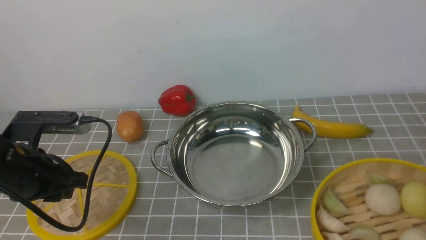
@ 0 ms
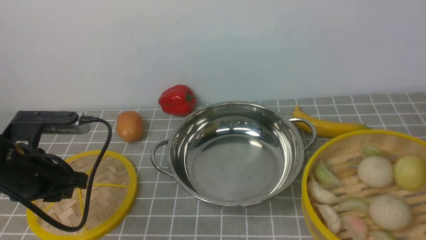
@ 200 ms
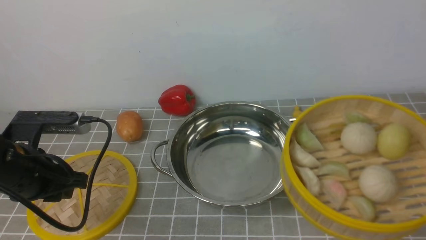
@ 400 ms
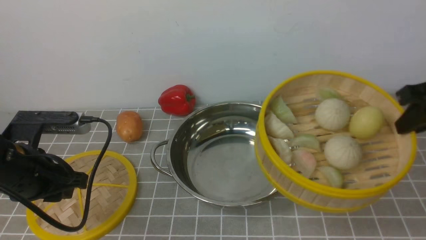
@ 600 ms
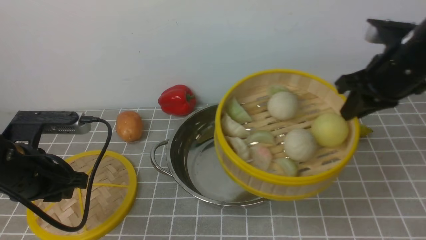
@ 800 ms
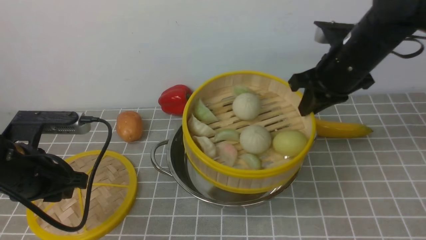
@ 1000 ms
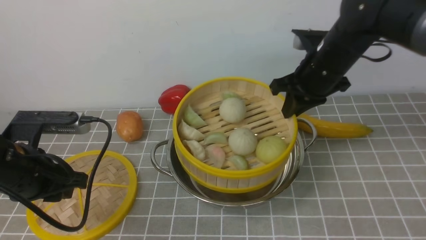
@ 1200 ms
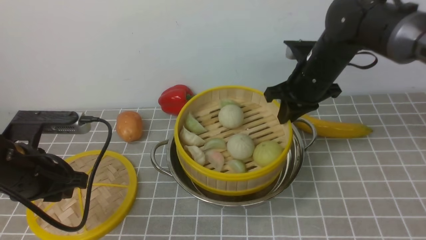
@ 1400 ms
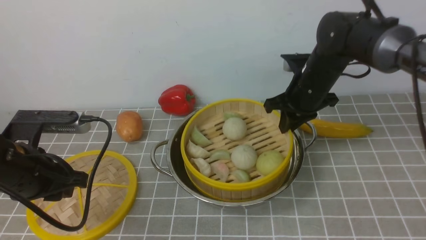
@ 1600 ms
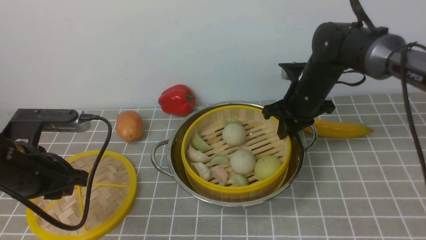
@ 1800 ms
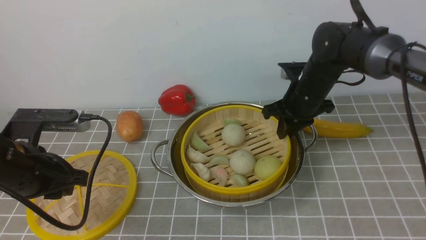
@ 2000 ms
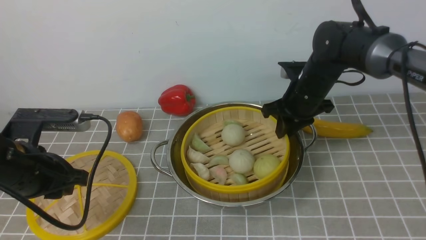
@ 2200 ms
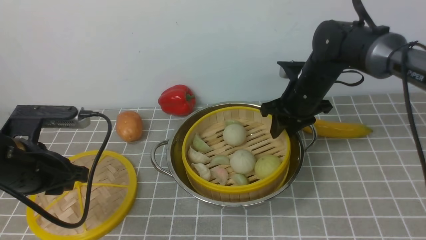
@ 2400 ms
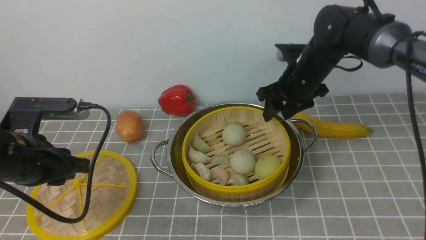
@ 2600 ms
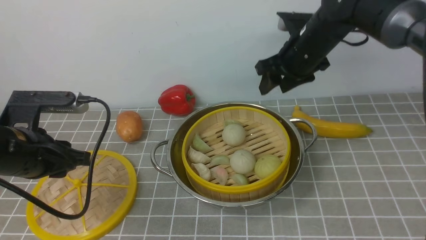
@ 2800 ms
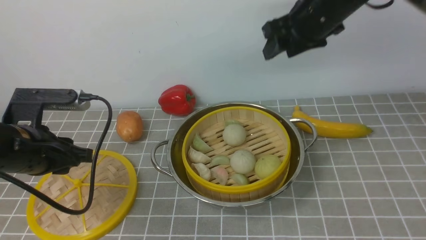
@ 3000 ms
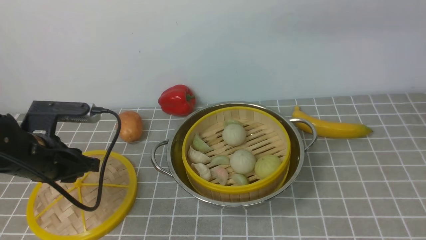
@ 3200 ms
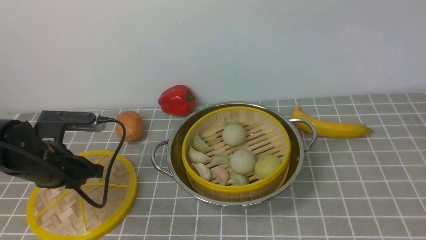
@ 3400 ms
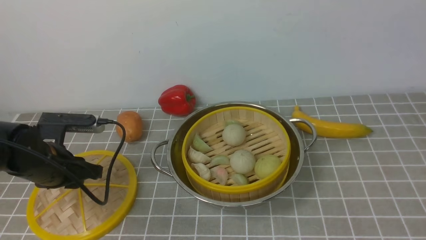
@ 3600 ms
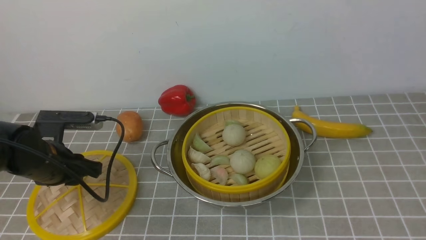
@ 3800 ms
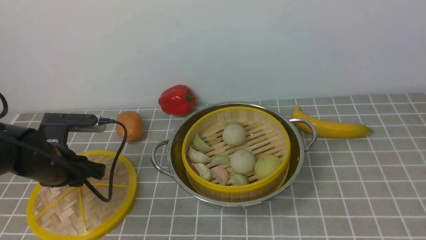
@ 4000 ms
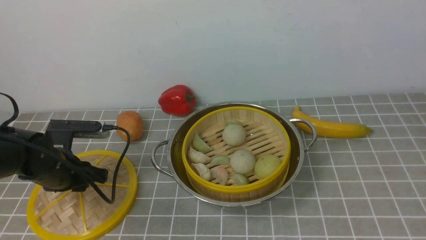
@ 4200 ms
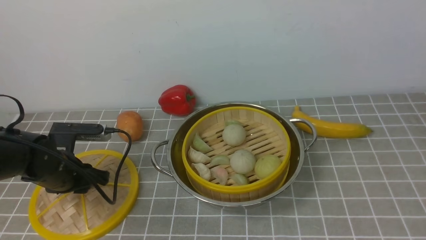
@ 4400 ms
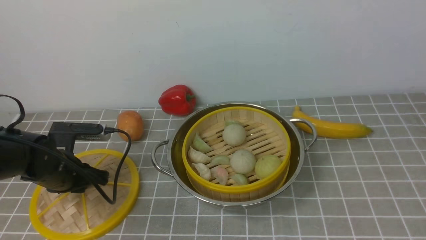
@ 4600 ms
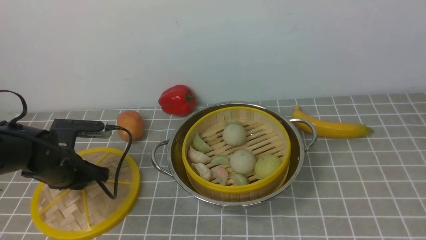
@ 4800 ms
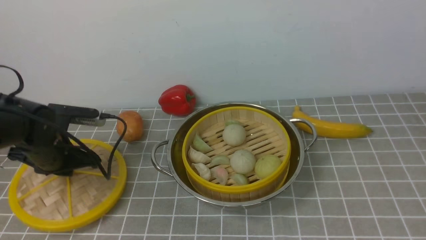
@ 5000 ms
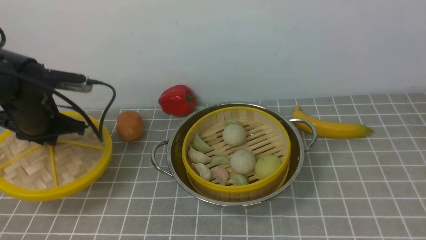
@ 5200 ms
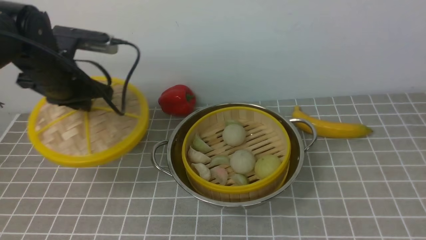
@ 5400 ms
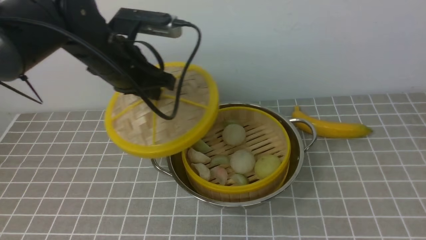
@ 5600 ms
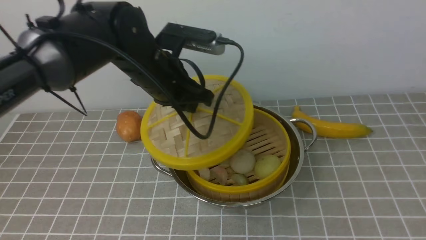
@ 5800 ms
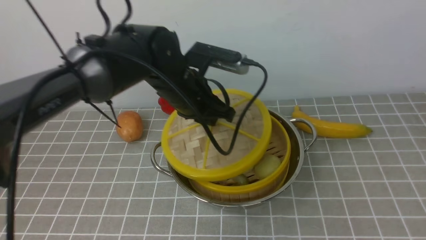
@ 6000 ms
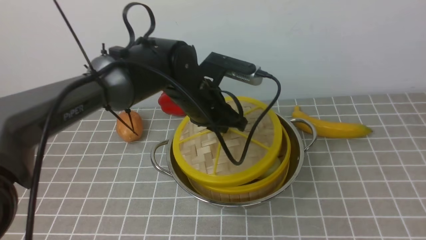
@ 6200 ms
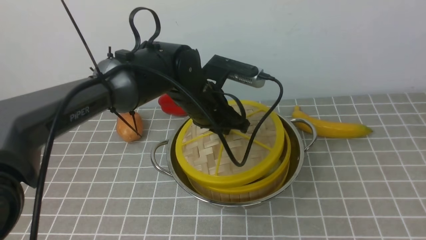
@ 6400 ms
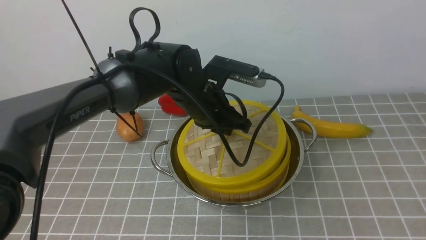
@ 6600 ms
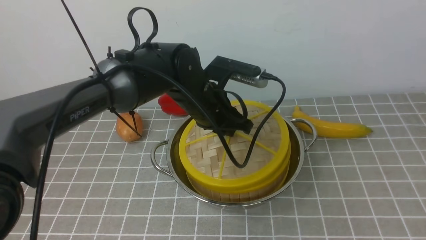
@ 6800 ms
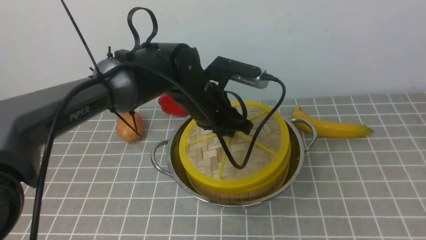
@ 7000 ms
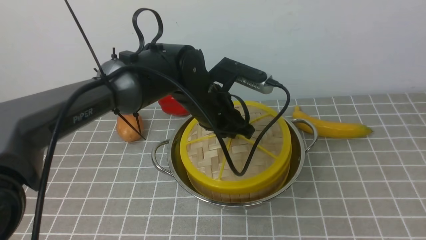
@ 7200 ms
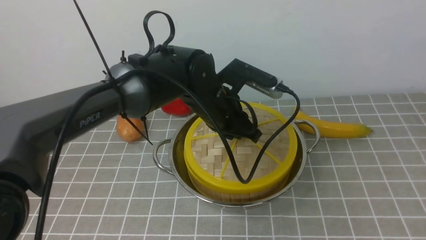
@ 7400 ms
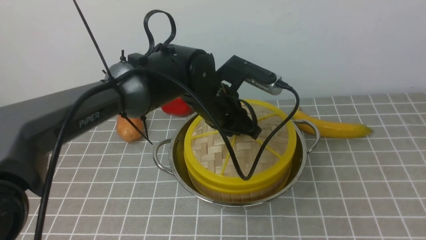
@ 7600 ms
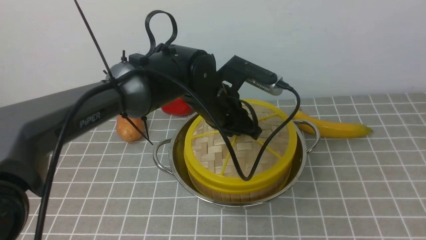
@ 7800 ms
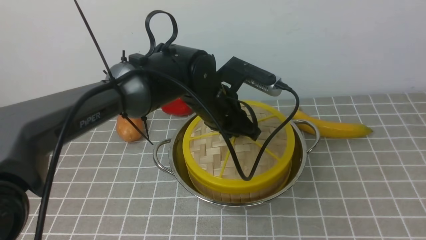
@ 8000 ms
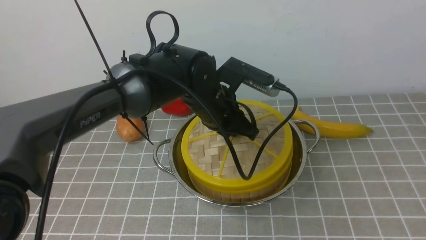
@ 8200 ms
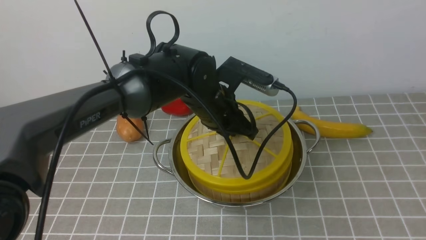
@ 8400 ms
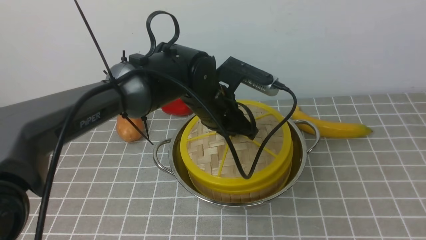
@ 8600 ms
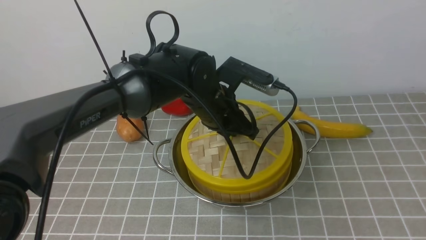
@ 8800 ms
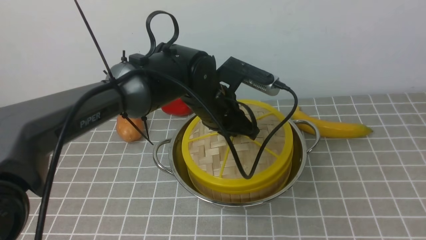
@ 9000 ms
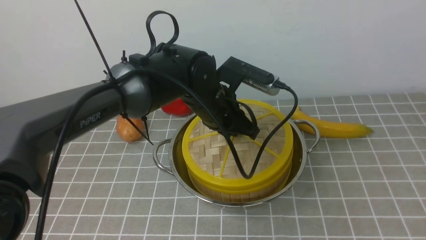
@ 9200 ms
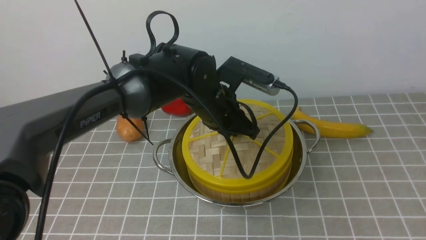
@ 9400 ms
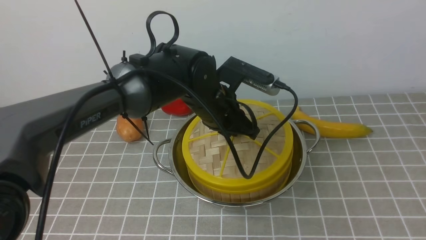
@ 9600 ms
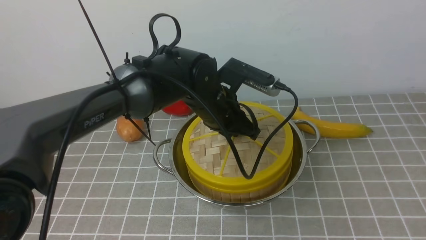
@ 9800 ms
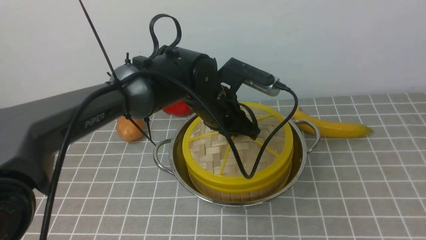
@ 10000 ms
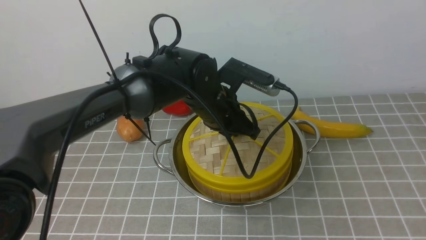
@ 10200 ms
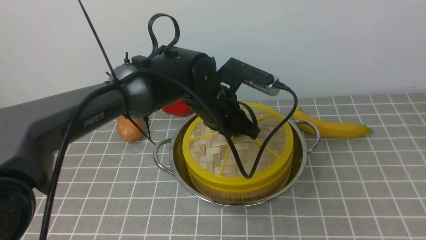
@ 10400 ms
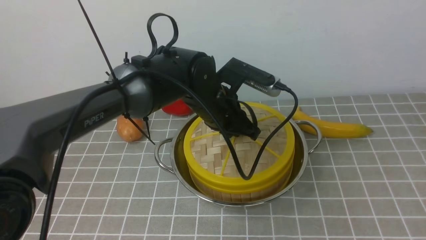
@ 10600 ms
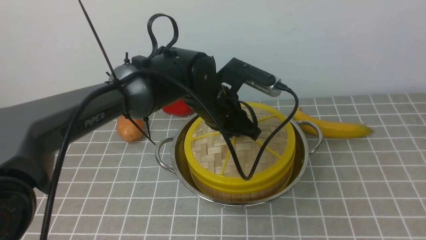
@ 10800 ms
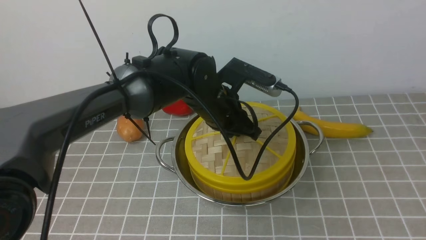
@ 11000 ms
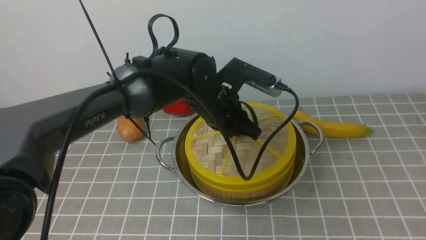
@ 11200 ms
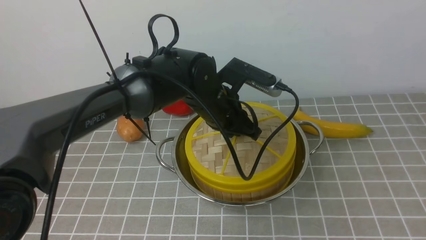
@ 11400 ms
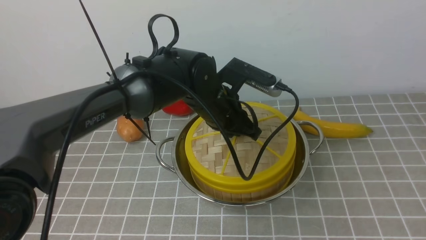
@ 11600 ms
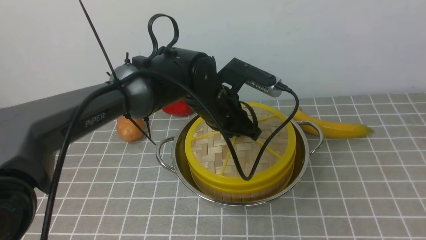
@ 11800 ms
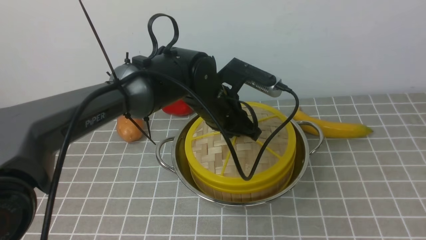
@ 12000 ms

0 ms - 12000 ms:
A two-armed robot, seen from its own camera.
Task of the whole recording: place the steamer in the pot on the grey tablecloth, and put the lid on the steamer.
Step, 0 ms - 2600 ms: use the right arm to put the steamer into the iron steamer pot in the middle.
Step, 2800 ms - 5000 ms: use the left arm to lift the lid of the steamer.
0 ms - 1600 ms: The right gripper moves forward and to the left, approximately 25 cm.
1600 ms - 3000 ms: The right gripper moves upward, approximately 10 cm, and opens.
3000 ms - 4400 ms: The left gripper heads downward, covering about 10 cm. Meanwhile the right gripper moves backward and upward, approximately 50 cm.
4400 ms - 6000 ms: The left gripper goes approximately 20 cm to the right and upward, and closes its fingers.
6000 ms - 7600 ms: The left gripper heads to the right, covering some 5 cm.
7600 ms - 12000 ms: Both grippers stay about where they are.

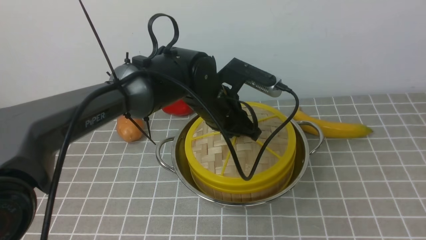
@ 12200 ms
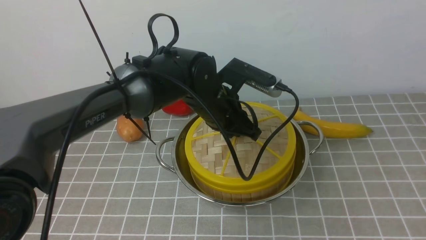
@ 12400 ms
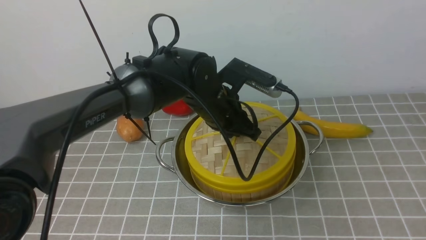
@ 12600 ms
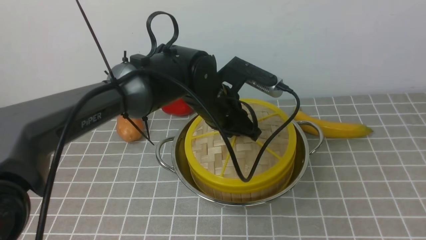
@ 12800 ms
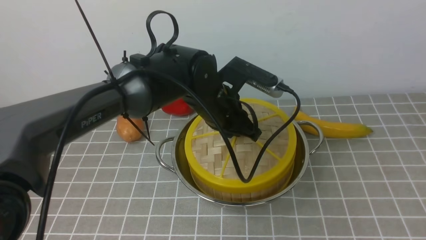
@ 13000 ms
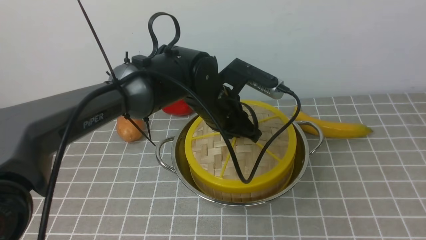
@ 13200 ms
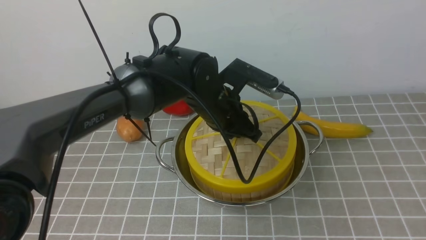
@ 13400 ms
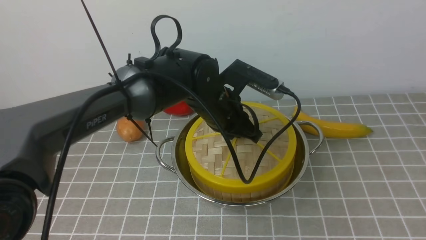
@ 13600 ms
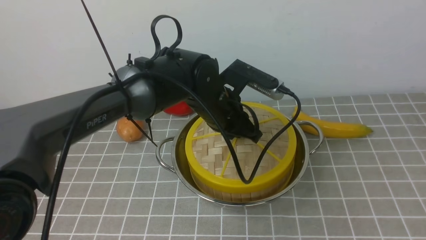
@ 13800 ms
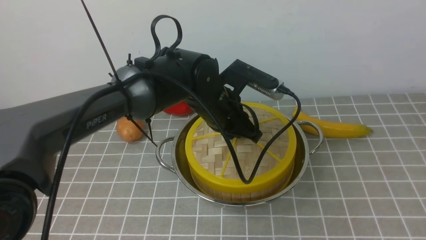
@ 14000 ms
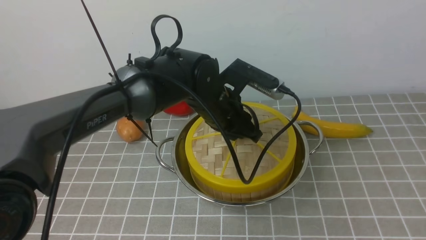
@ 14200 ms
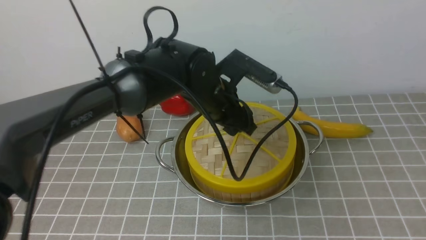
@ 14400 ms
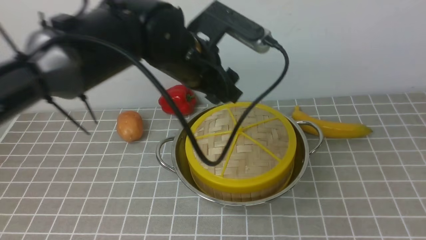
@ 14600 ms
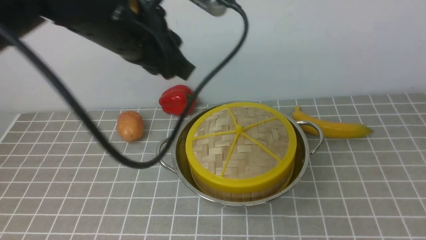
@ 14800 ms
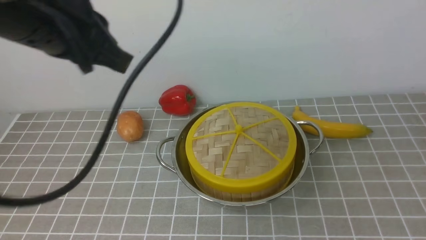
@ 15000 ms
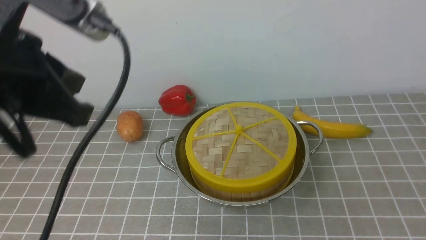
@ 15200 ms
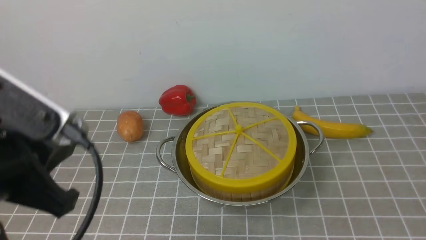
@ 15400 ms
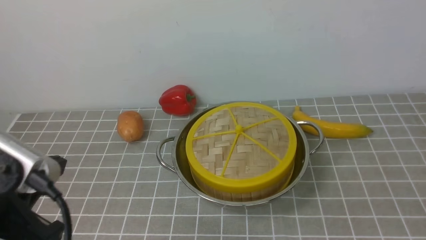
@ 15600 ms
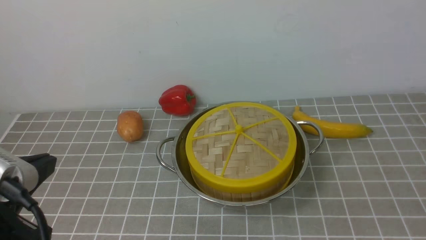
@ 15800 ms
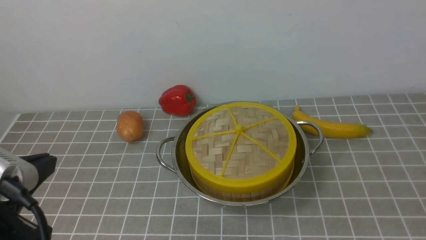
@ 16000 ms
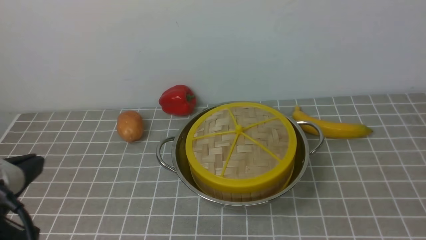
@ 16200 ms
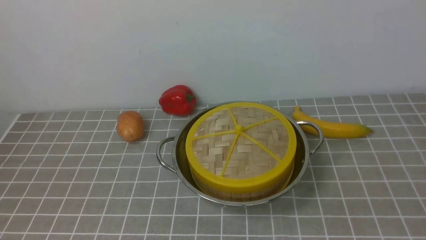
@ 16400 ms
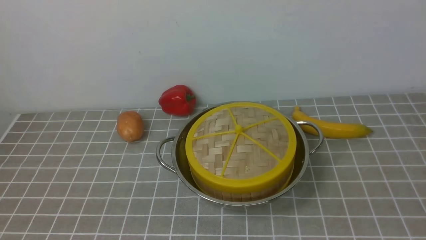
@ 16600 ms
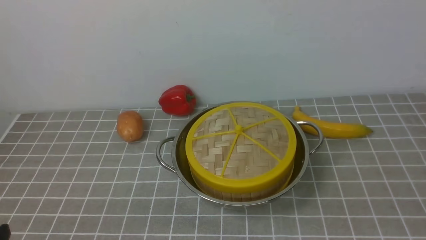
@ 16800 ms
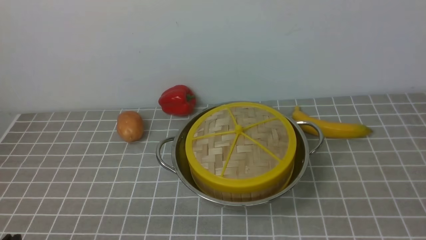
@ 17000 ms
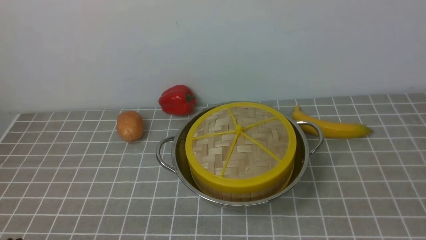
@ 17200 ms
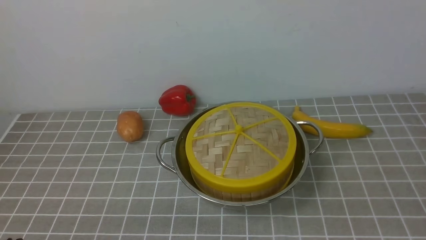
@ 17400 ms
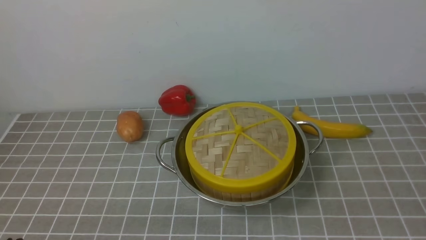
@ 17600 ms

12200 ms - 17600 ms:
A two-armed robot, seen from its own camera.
Task of the whole recording: place the steamer in the pot on the grey tablecloth, and put the lid on the steamer.
Step, 12200 ms - 14400 ms: use the left arm to place the steamer lid on the steamer.
12200 ms - 13600 ms: Both grippers stay put.
13600 ms - 15000 ms: The left gripper travels upward, to the left and backward by about 25 cm, and opens and closes again. Meanwhile the right gripper moves downward, roughly 10 cm.
15000 ms - 16200 ms: The right gripper travels downward by approximately 15 cm, and closes up, while the left gripper moves backward, to the left and downward, some 20 cm.
16200 ms - 17600 ms: The left gripper is displaced downward by approximately 15 cm.
